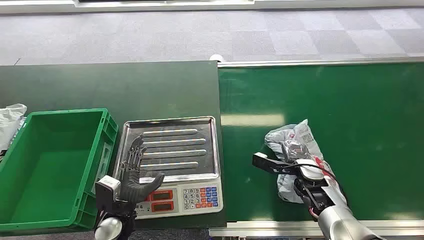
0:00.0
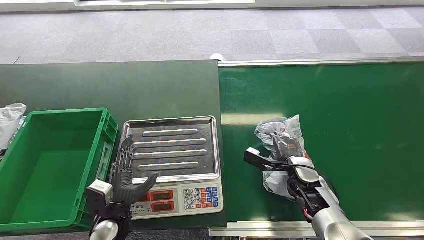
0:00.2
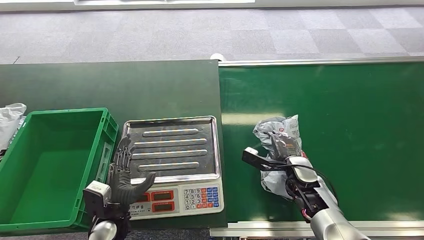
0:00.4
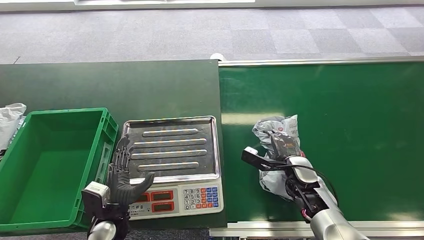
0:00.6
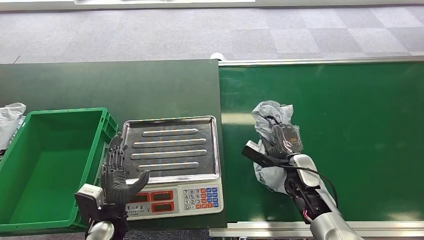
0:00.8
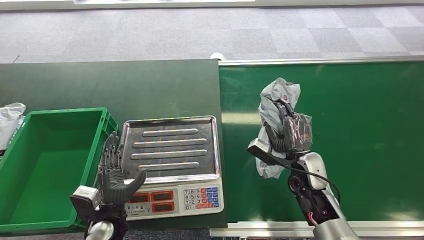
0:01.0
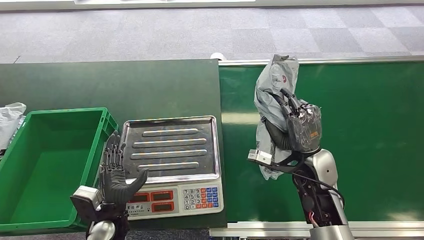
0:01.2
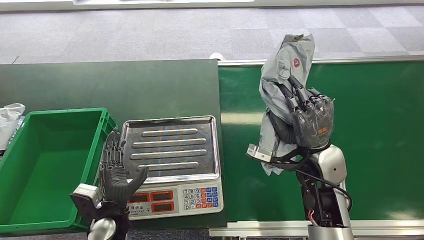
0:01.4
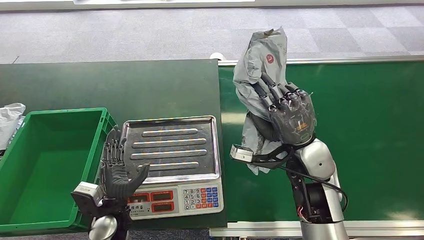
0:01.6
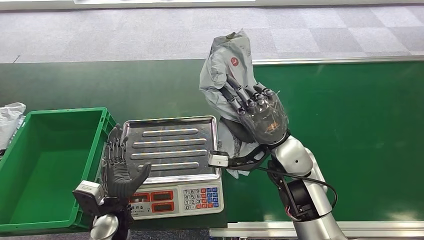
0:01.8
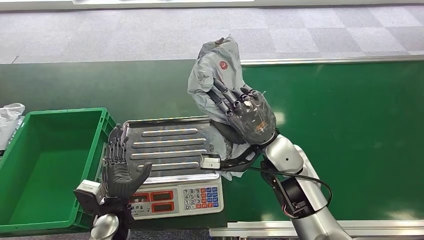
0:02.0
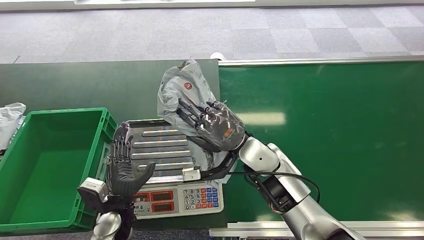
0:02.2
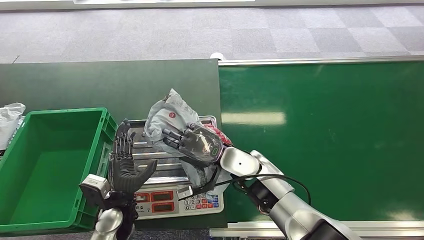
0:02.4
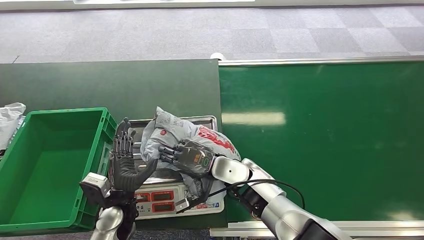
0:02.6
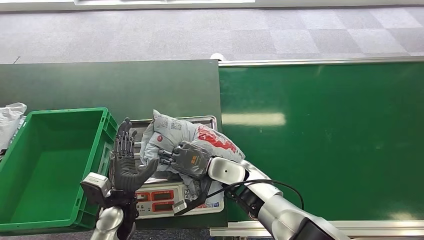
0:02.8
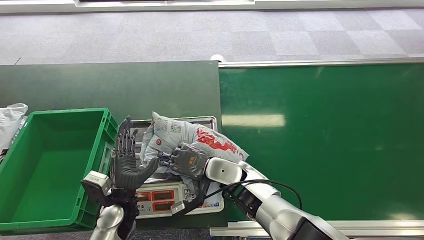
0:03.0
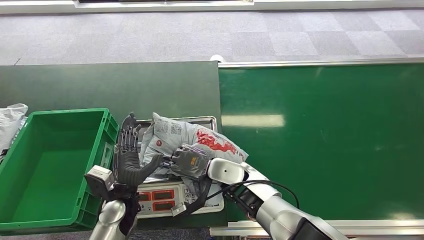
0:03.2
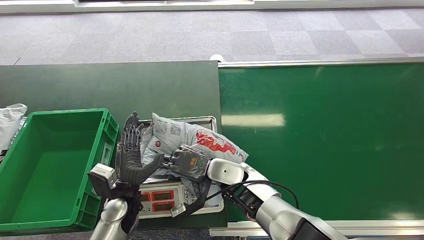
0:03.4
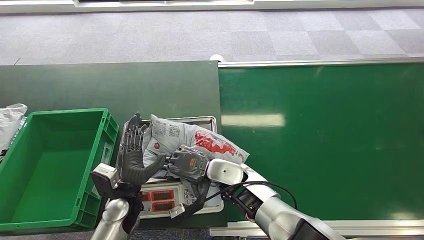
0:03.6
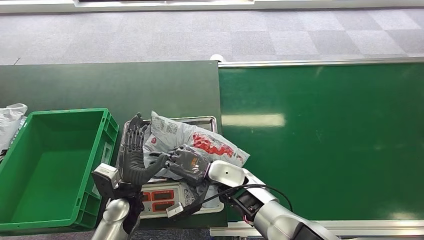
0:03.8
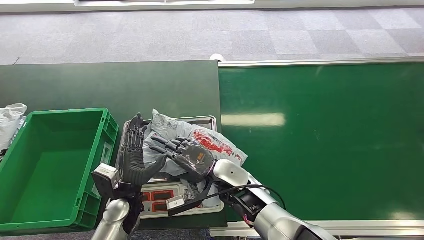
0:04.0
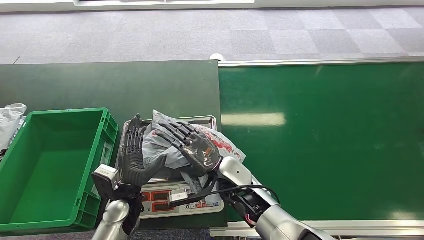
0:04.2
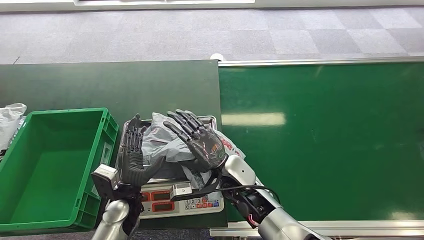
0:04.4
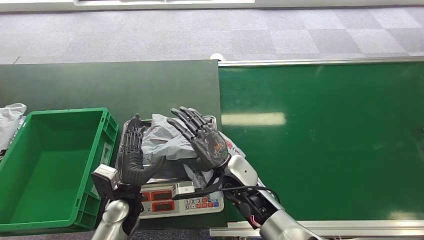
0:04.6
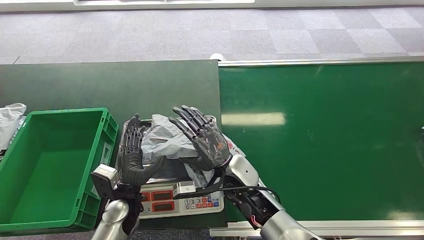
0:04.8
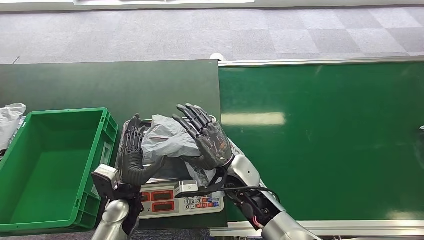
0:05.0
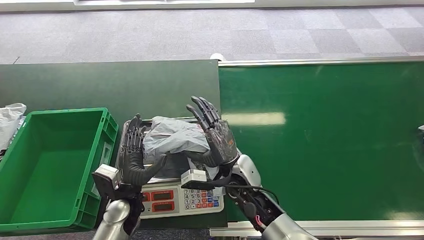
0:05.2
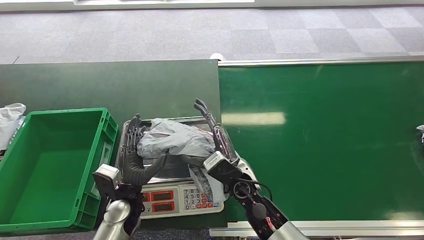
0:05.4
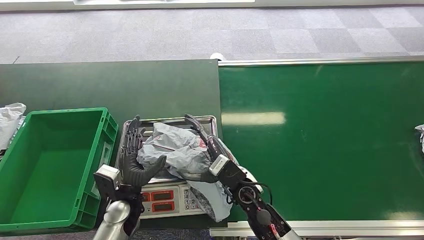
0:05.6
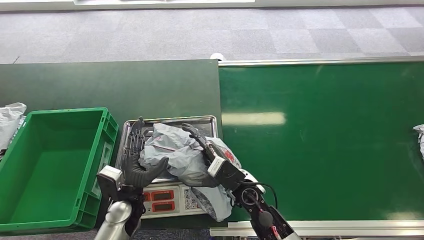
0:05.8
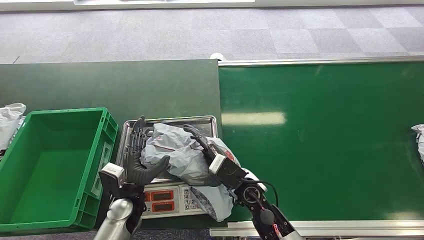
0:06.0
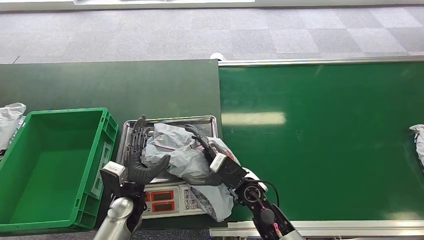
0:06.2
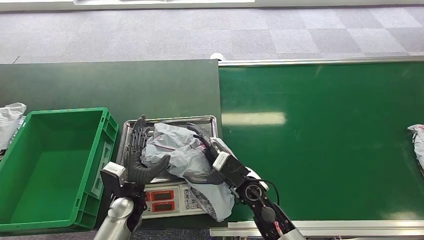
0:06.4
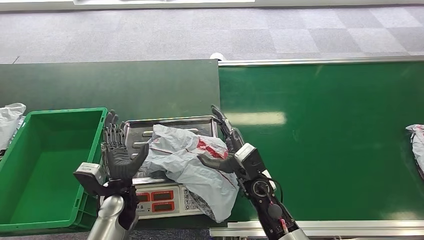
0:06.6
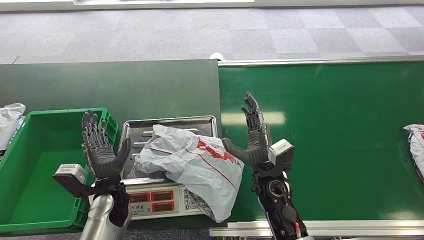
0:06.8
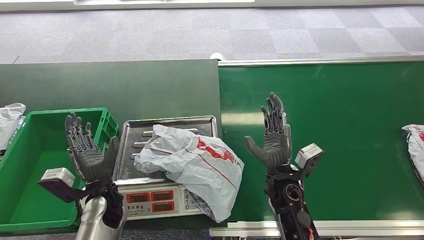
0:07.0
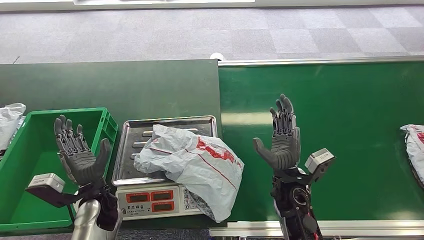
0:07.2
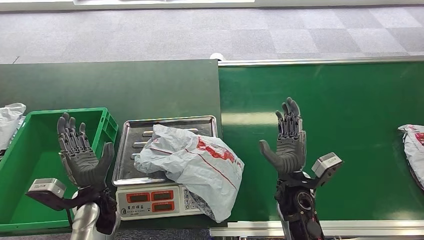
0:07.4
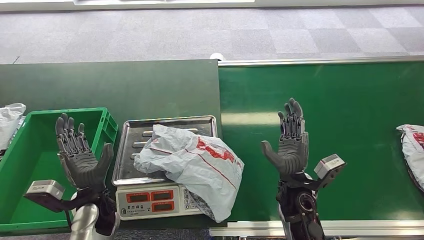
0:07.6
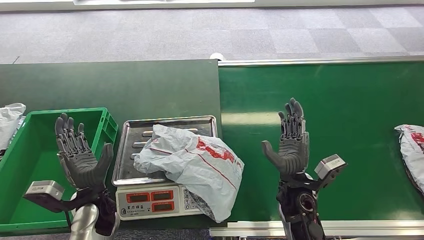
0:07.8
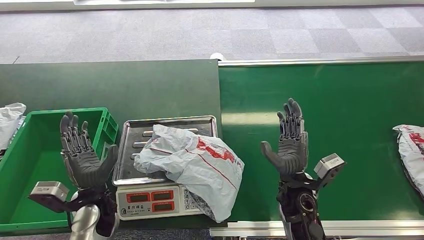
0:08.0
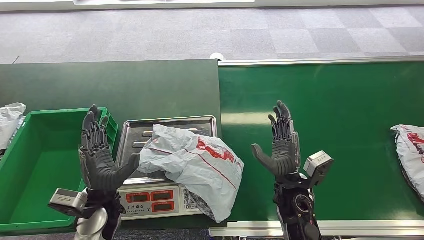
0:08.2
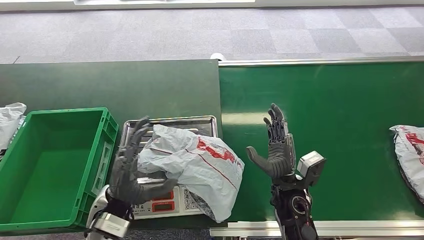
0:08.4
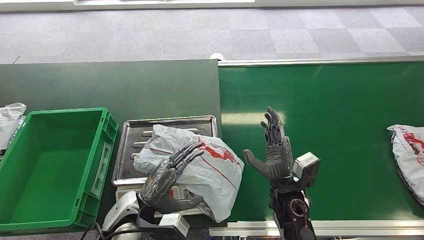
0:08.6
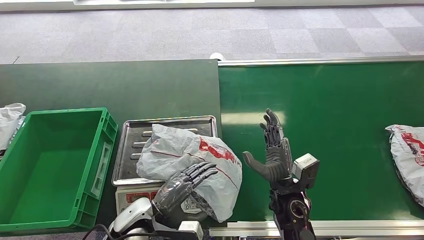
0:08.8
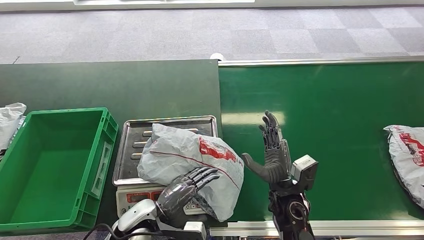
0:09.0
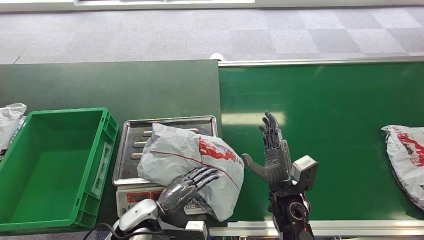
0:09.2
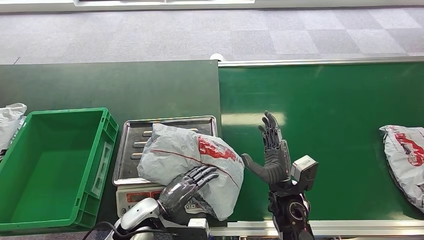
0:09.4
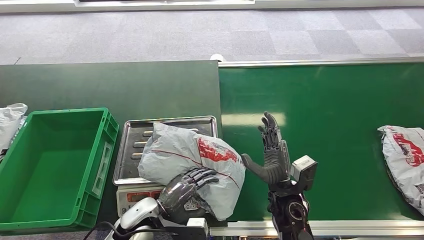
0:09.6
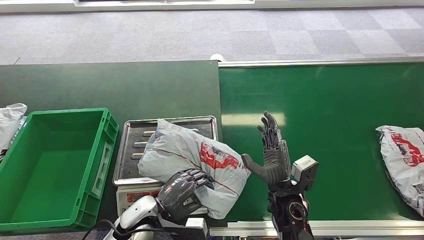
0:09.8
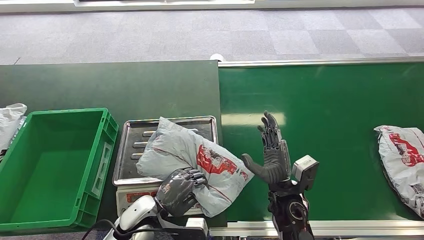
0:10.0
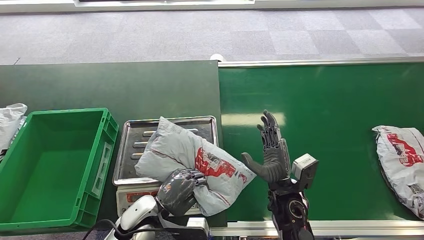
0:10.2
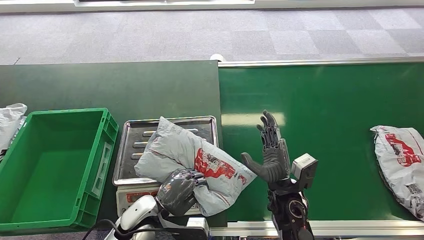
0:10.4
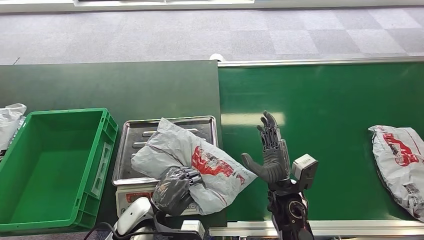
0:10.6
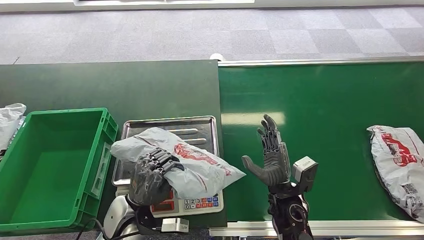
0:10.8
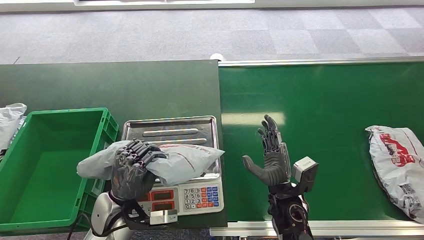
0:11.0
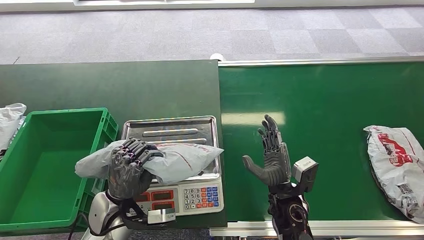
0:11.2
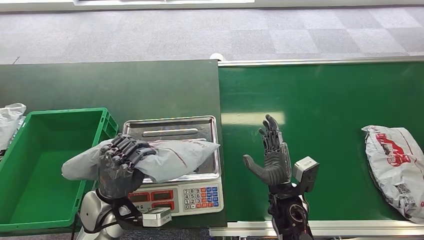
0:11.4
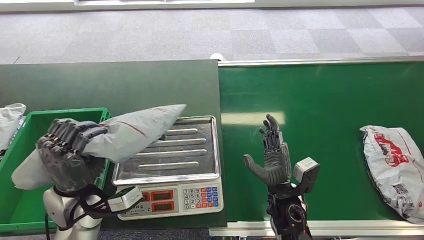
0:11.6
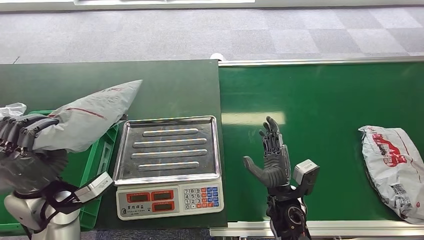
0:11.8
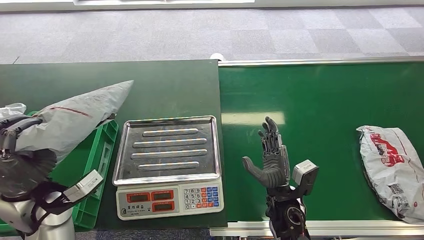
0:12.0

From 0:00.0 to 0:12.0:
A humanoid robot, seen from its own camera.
Step, from 0:00.0 to 0:02.0: Pick up the package from the conveyor belt.
Step, from 0:02.4 to 0:05.2: Place the package onto the inbound machine.
Step, from 0:09.2 to 0:11.4: Pick up the package from the inbound machine.
From 0:06.0 to 0:07.6: The right hand goes about 10 cm to the right; the left hand shifts some 5 cm to the left.
From 0:07.6 to 0:09.0: The left hand moves to the right, approximately 10 cm.
From 0:09.0 to 0:10.4: There are only small adjustments of the hands.

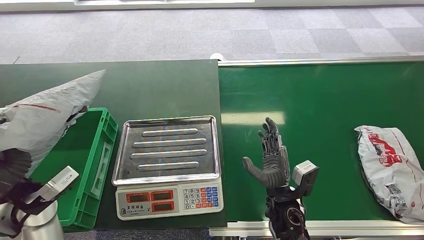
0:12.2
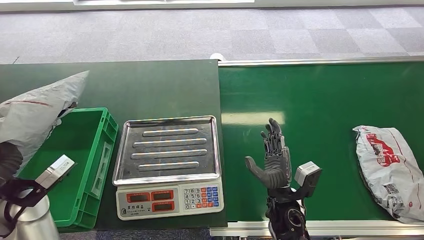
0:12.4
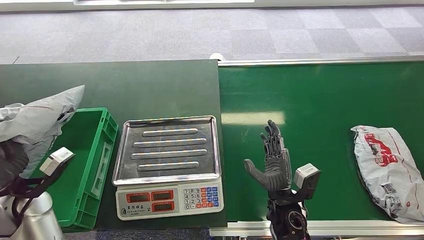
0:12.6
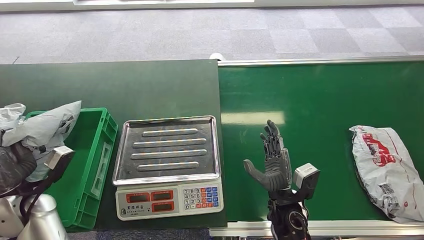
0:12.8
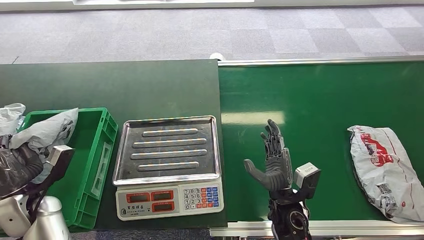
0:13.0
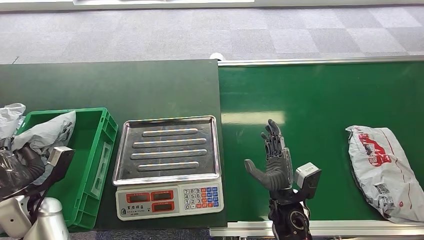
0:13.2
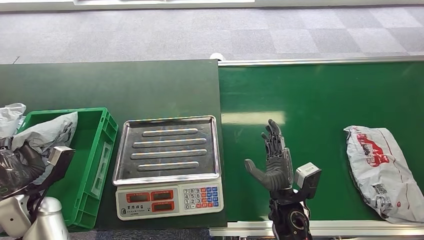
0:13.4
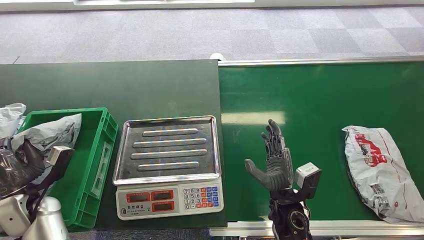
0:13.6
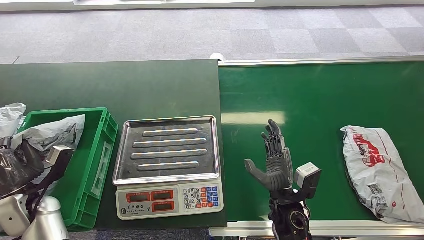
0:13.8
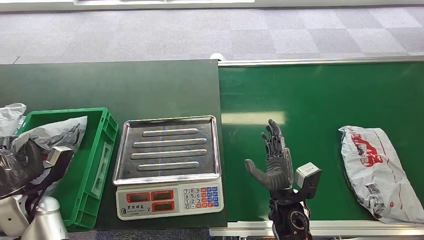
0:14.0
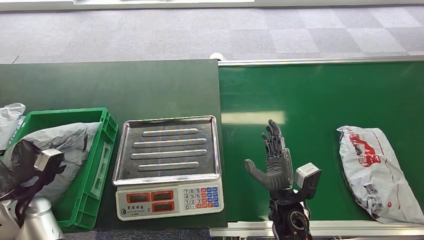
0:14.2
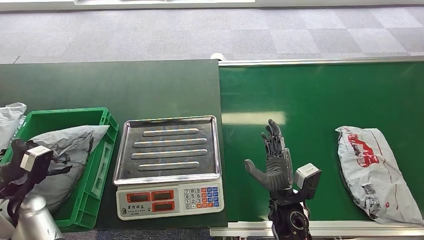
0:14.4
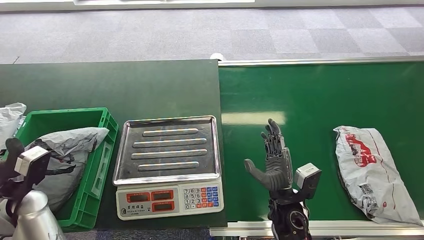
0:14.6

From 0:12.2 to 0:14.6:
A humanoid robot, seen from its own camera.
Step, from 0:12.2 to 0:14.6: Place the package into the parcel locker.
From 0:12.2 to 0:13.4: The left hand moves downward and to the left, about 15 cm.
From 0:13.4 to 0:14.6: The left hand is displaced upward by approximately 5 cm.

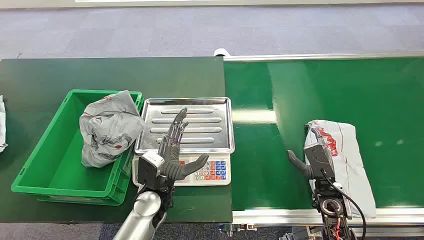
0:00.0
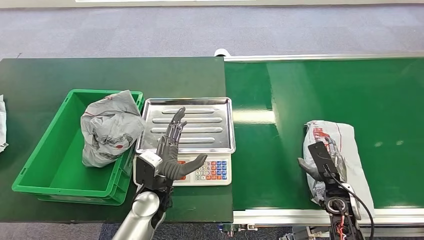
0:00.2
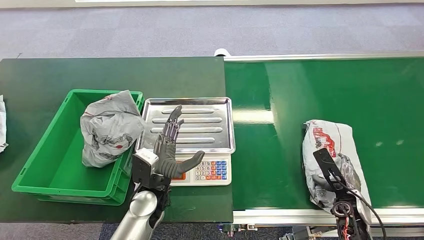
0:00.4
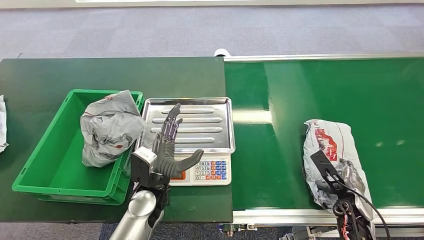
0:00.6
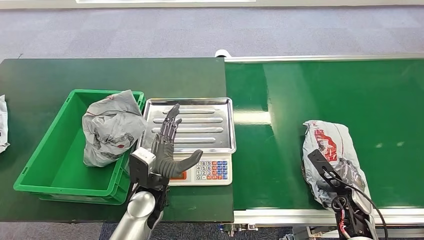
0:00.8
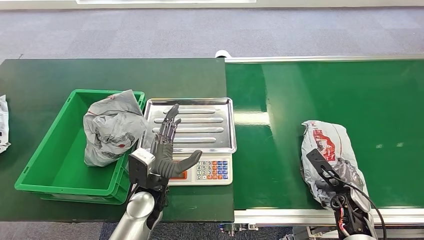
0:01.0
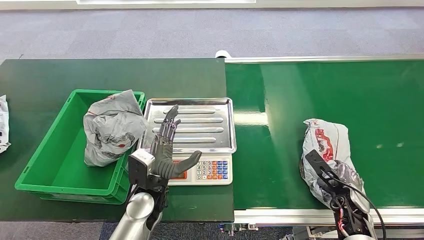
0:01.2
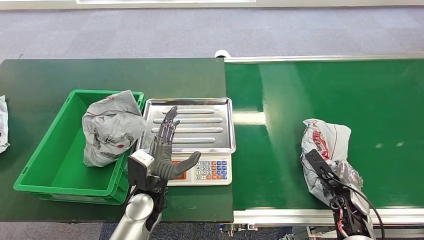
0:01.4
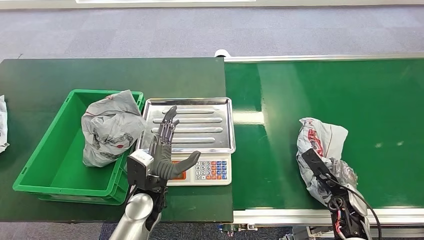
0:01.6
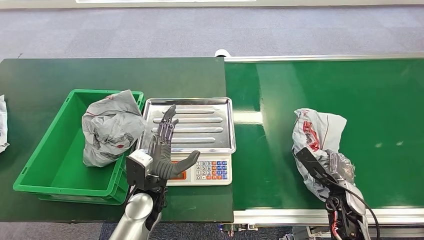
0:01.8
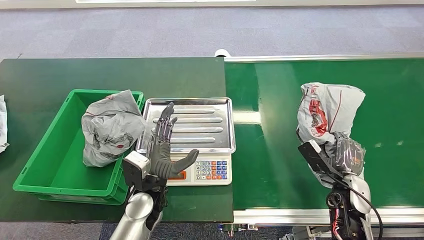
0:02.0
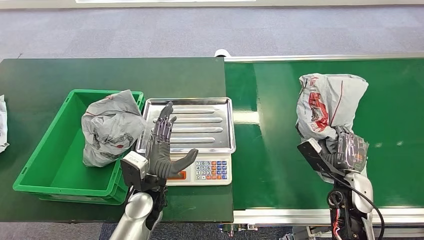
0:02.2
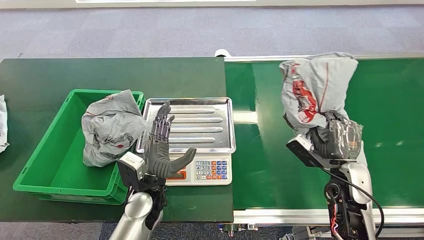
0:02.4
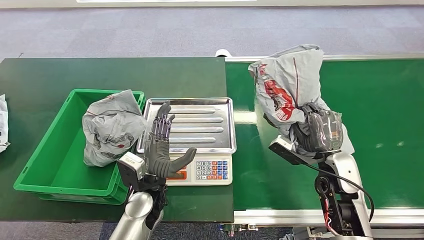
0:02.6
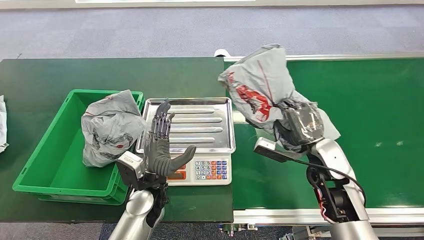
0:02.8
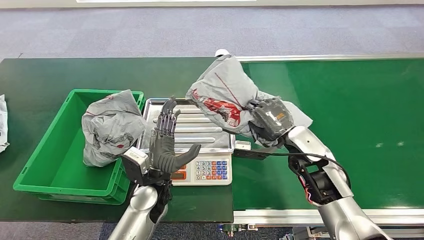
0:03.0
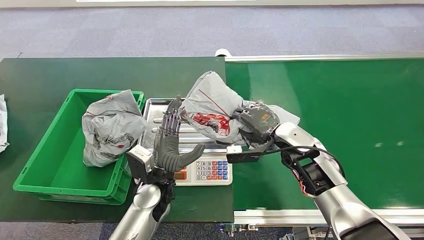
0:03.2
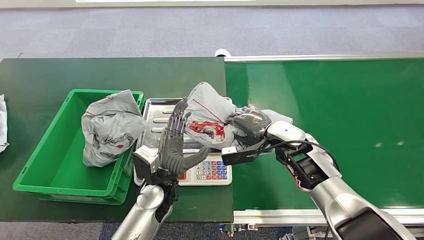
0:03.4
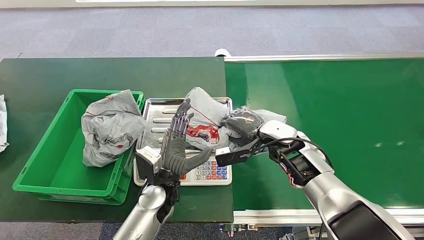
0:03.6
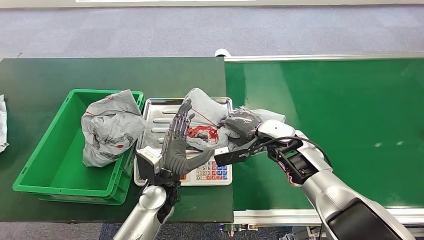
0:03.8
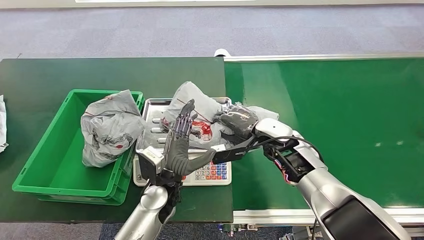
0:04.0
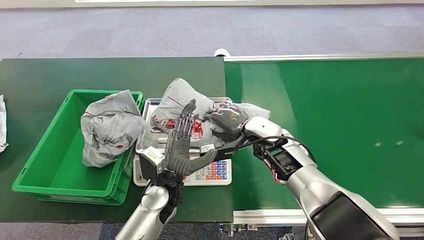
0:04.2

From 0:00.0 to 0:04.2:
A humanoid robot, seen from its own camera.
Step, from 0:00.0 to 0:02.2: Pick up the package from the conveyor belt.
From 0:01.4 to 0:02.8: The right hand heads upward and to the left, covering about 15 cm.
